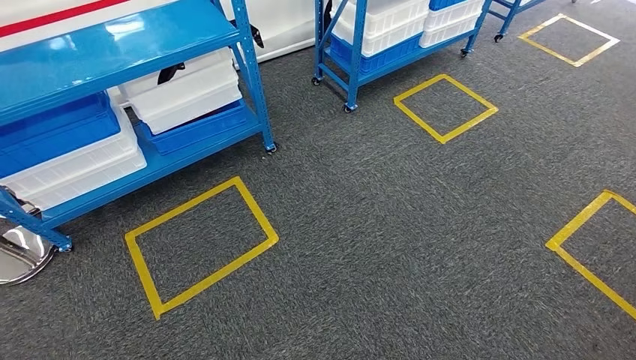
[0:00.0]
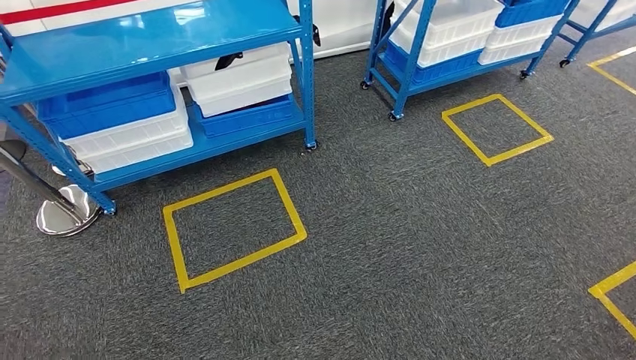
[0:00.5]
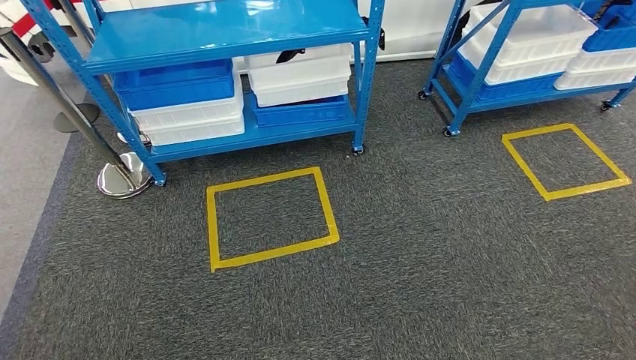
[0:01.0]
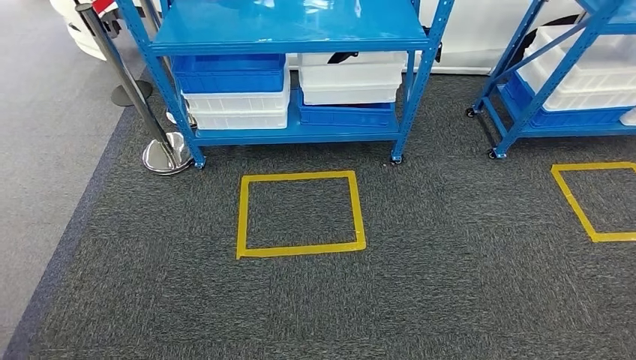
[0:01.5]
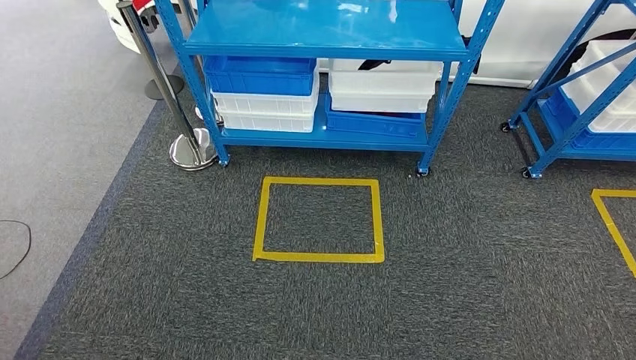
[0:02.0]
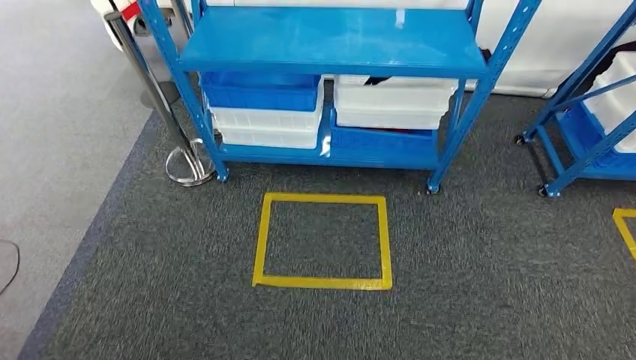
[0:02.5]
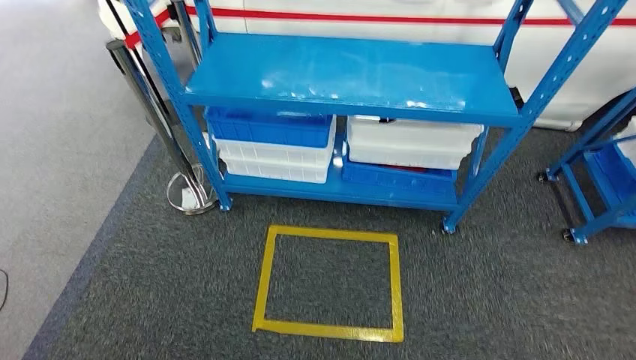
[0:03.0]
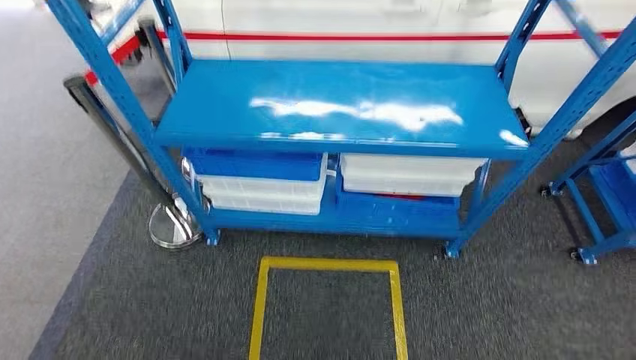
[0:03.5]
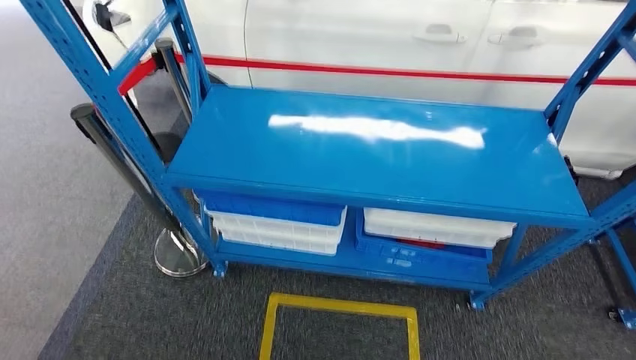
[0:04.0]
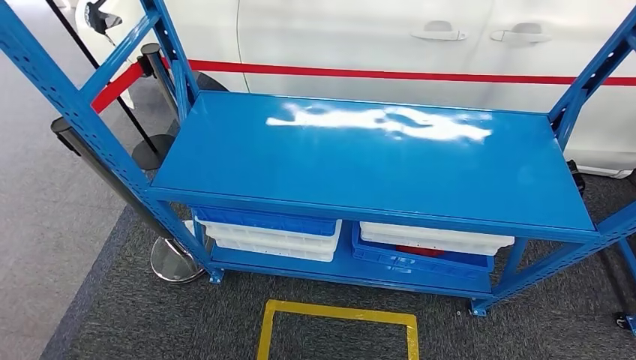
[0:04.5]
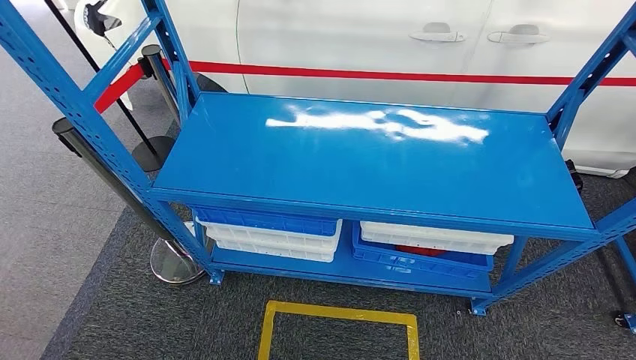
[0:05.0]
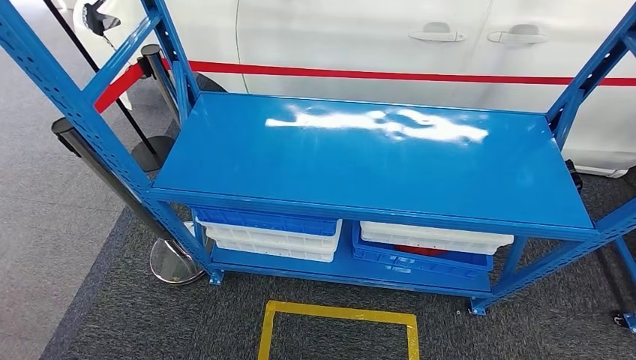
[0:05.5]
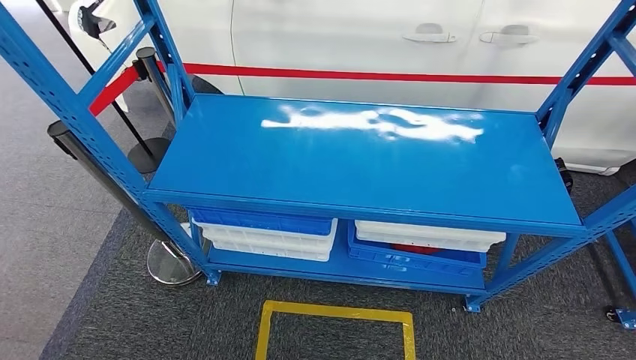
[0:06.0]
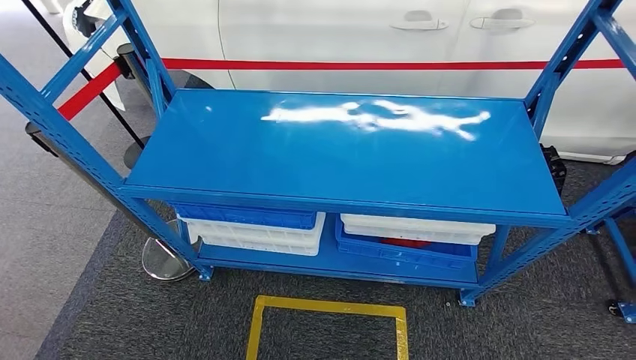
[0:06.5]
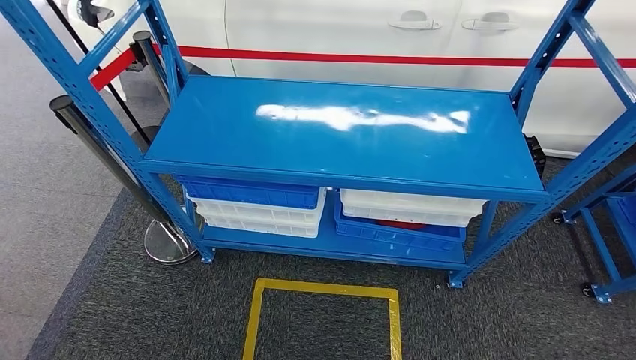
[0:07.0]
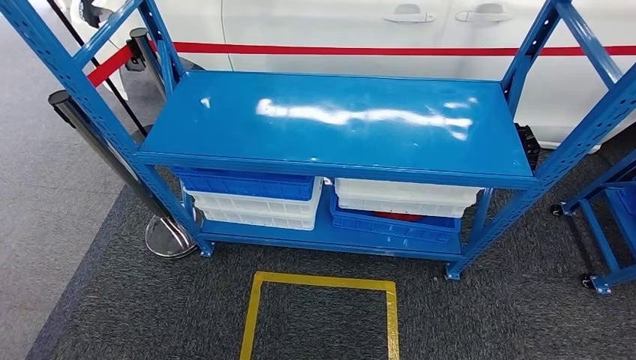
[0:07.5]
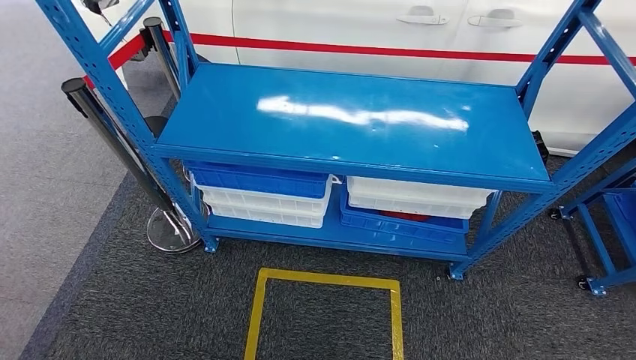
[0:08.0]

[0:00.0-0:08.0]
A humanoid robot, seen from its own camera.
Step, 0:00.0 to 0:08.0: Return to the initial position at the shelf.
